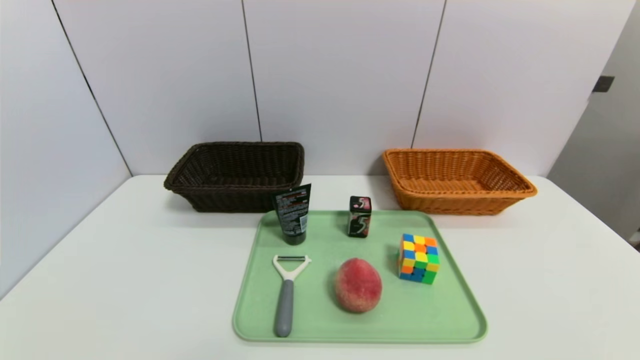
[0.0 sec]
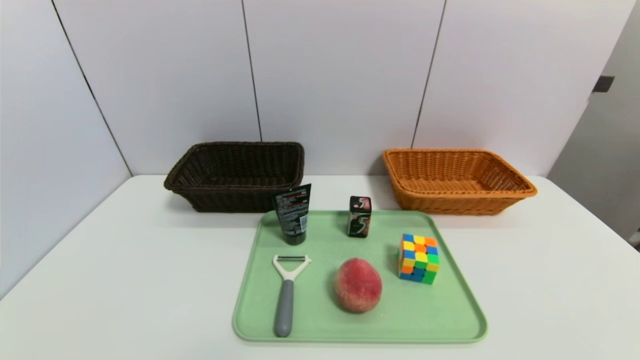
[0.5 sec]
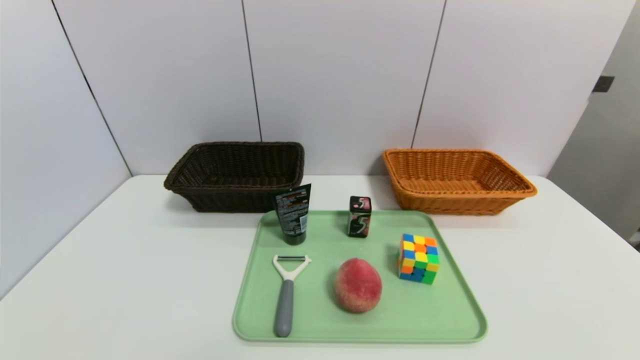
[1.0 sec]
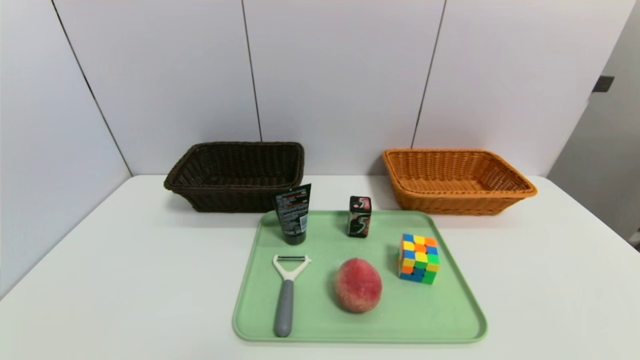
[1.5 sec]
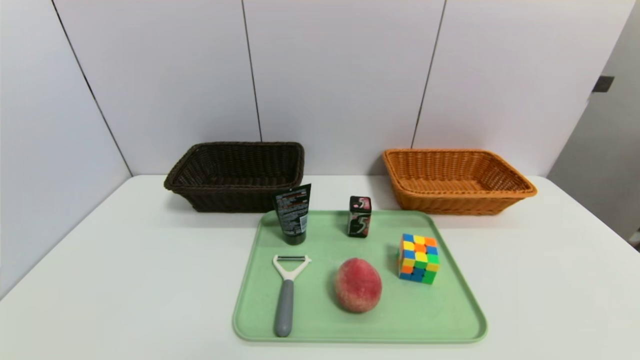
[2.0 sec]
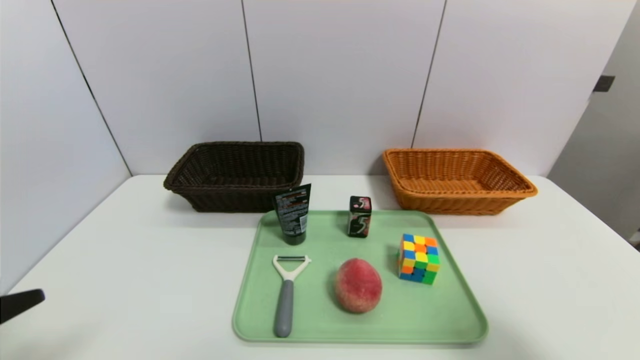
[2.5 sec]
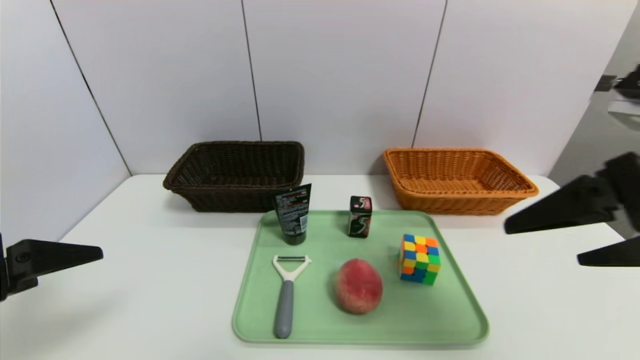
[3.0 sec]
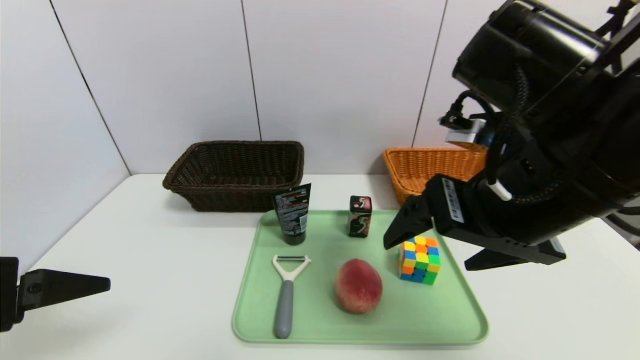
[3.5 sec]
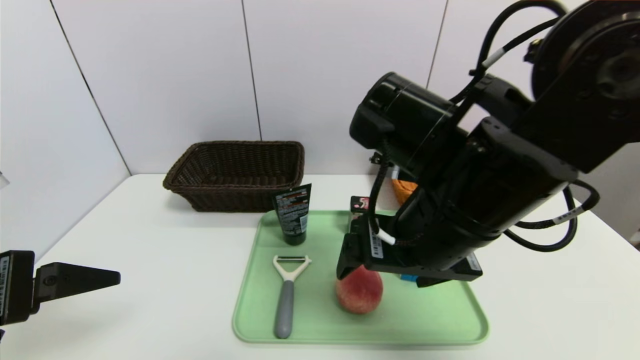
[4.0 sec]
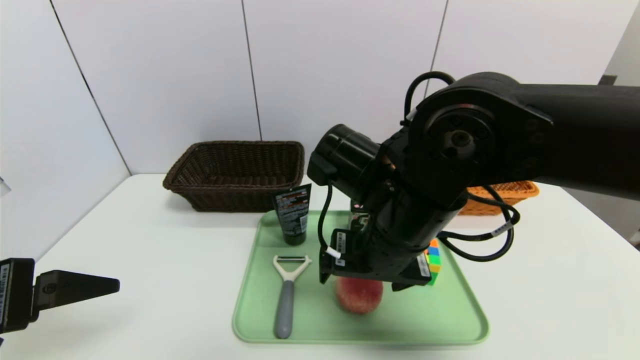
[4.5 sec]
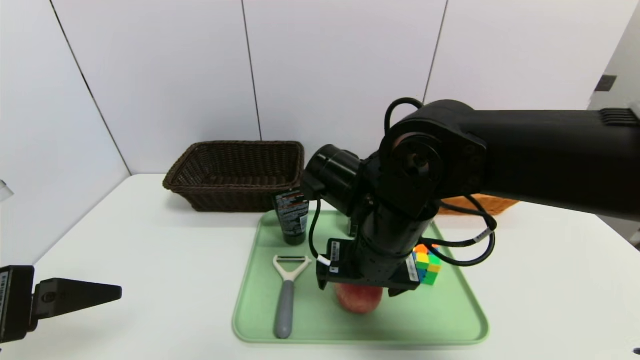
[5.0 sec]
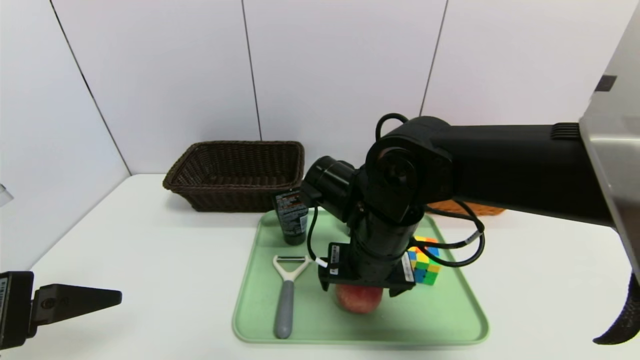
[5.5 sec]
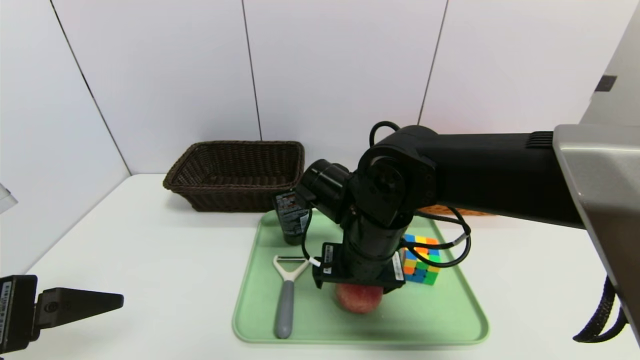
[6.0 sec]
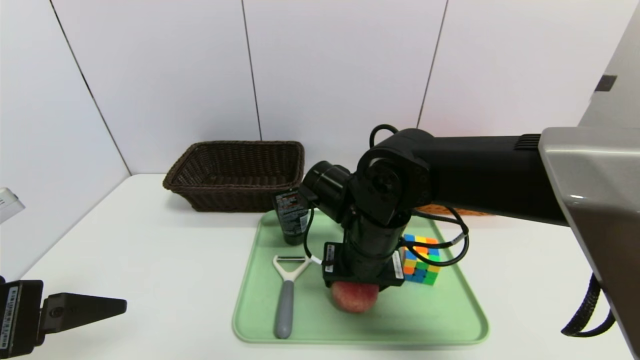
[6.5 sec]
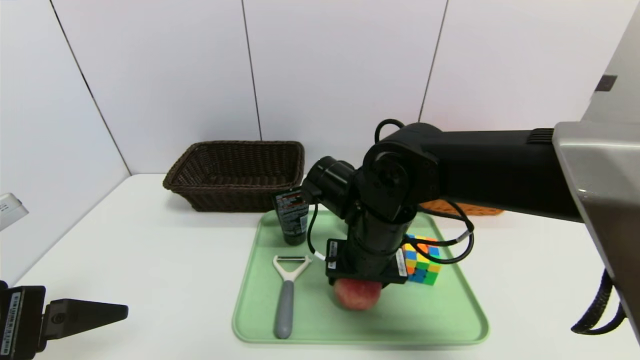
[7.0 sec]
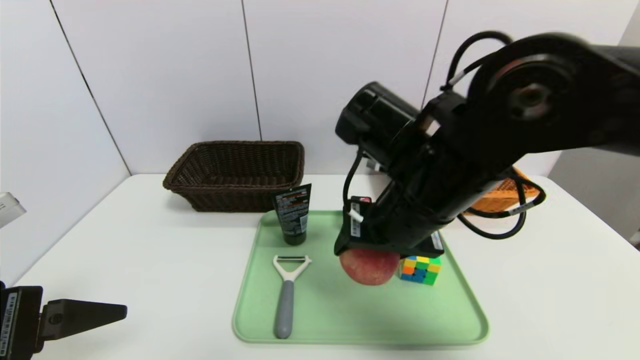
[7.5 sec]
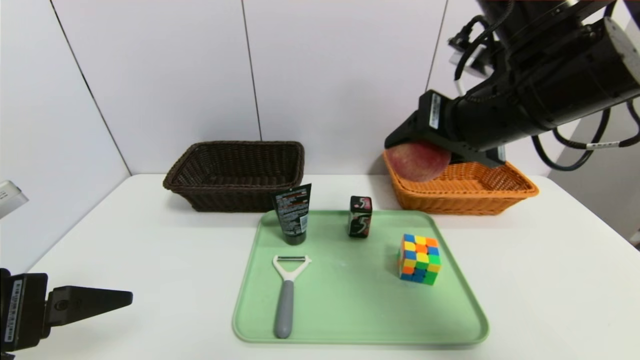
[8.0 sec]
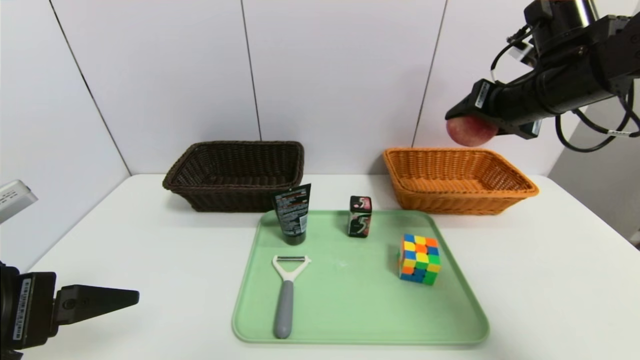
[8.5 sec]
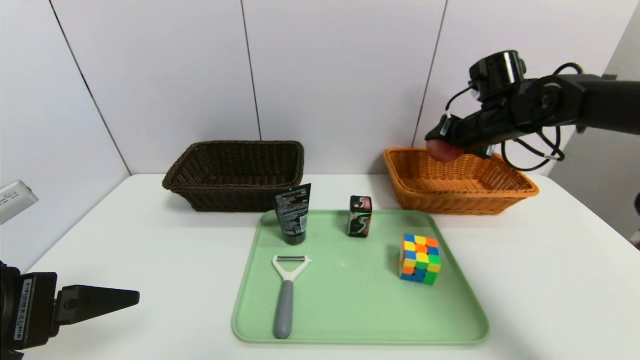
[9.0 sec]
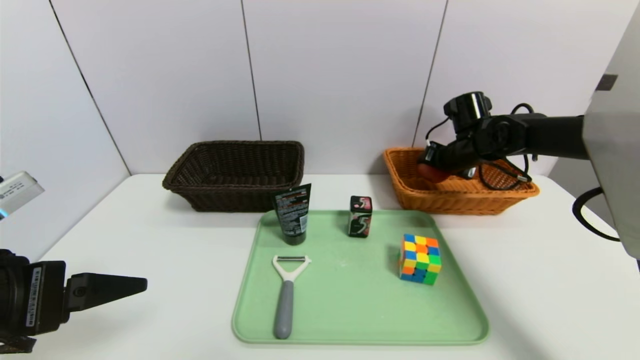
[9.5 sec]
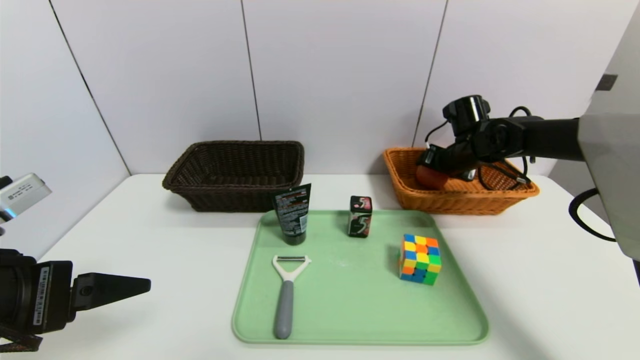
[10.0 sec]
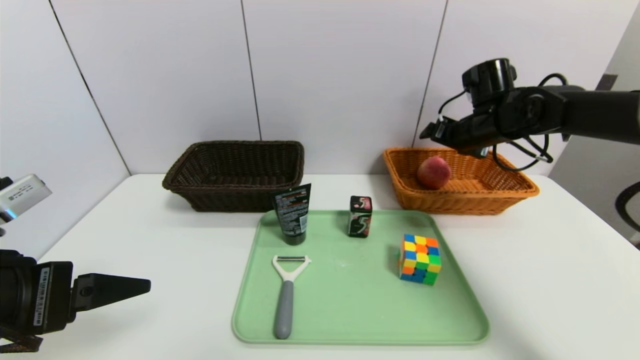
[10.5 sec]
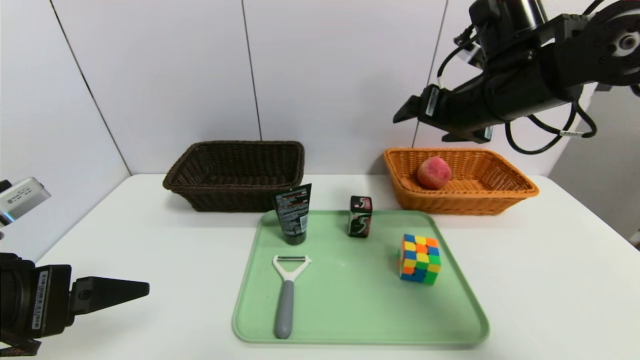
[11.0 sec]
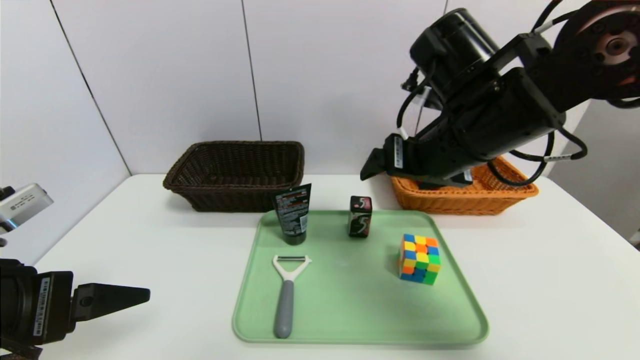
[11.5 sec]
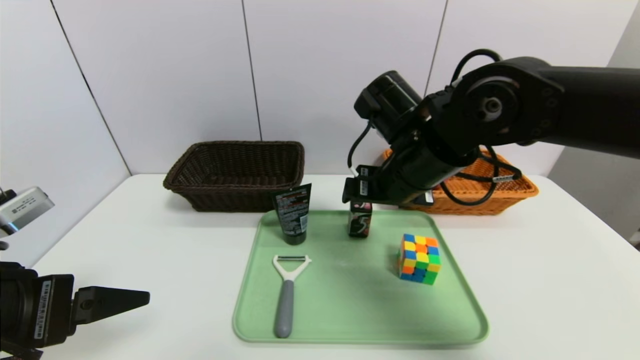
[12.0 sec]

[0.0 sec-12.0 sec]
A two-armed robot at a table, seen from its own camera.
Task of the whole recording: place the food in the right basket with the right gripper, and place the non food items in the left basket with the left gripper.
Step, 0.0 sec to 10.0 sec: Grasp the peach and put it in the right basket.
2.0 sec to 4.0 sec: The right gripper heads to the left and forward, covering approximately 35 cm. The left gripper is displaced forward and upward by roughly 20 cm.
4.0 sec to 6.0 sec: The right gripper heads downward and forward, covering approximately 10 cm.
6.0 sec to 8.0 sec: The right gripper is displaced upward and to the right by roughly 20 cm, and closes.
8.0 sec to 10.0 sec: The right gripper heads forward, downward and to the right, covering about 30 cm.
10.0 sec to 12.0 sec: The right gripper is displaced to the left, backward and upward by some 25 cm.

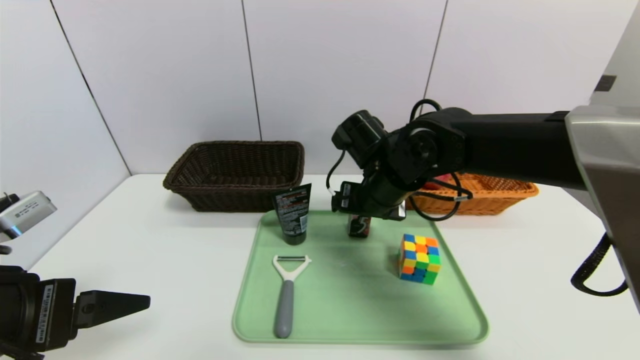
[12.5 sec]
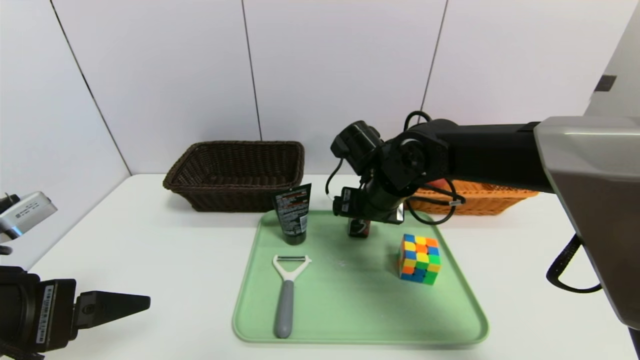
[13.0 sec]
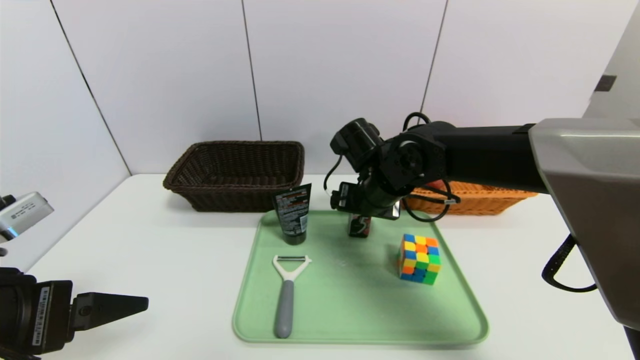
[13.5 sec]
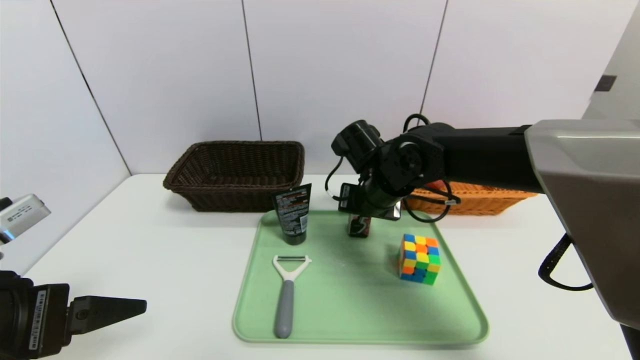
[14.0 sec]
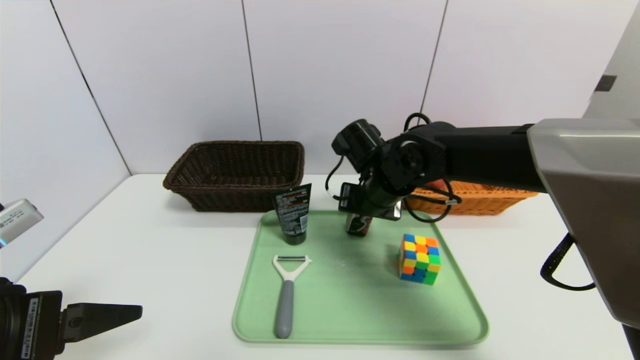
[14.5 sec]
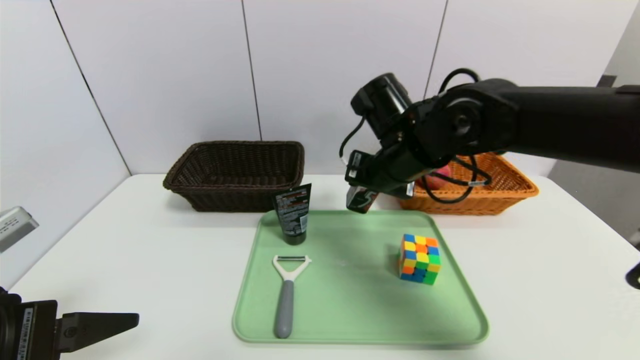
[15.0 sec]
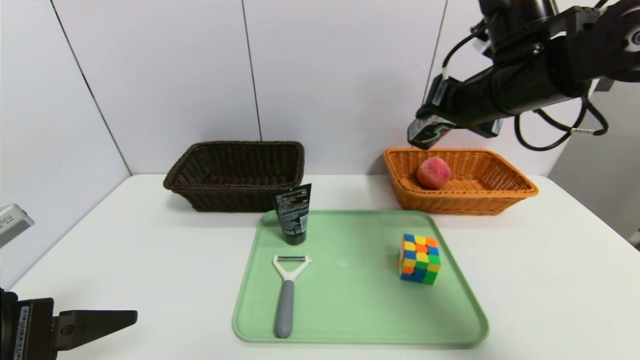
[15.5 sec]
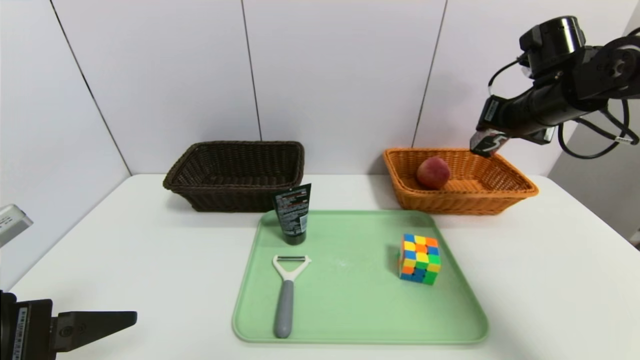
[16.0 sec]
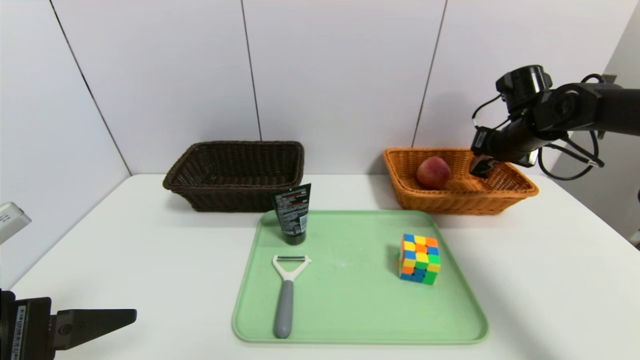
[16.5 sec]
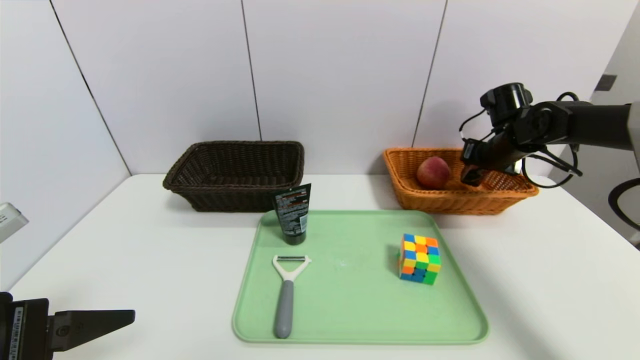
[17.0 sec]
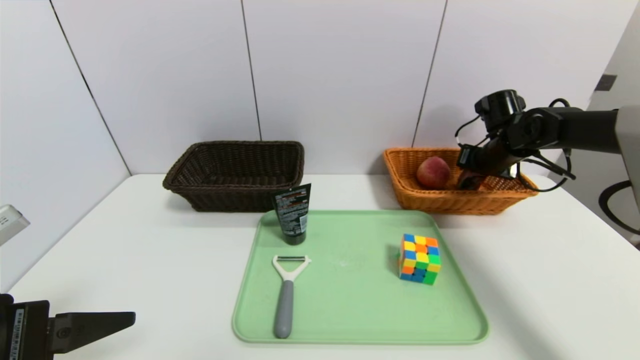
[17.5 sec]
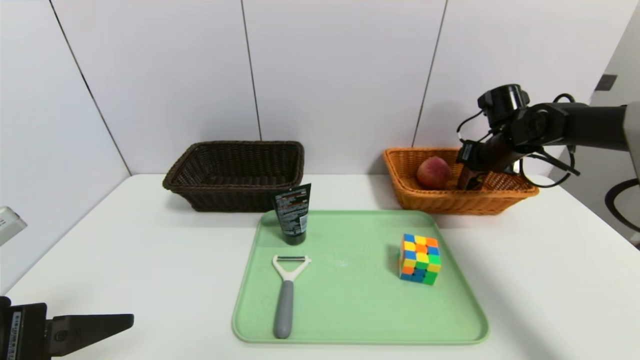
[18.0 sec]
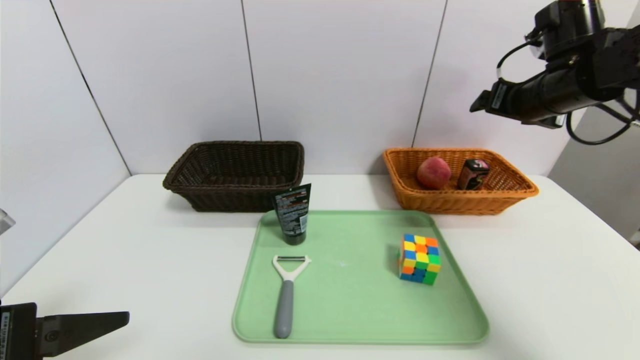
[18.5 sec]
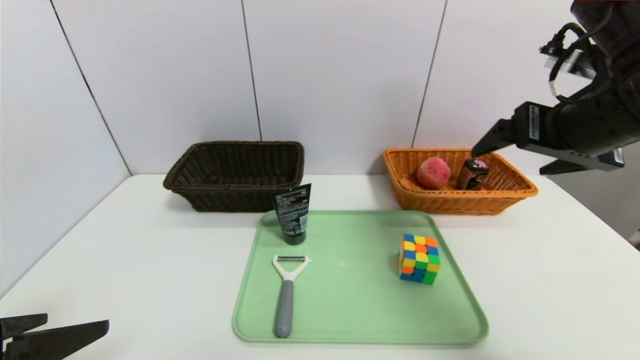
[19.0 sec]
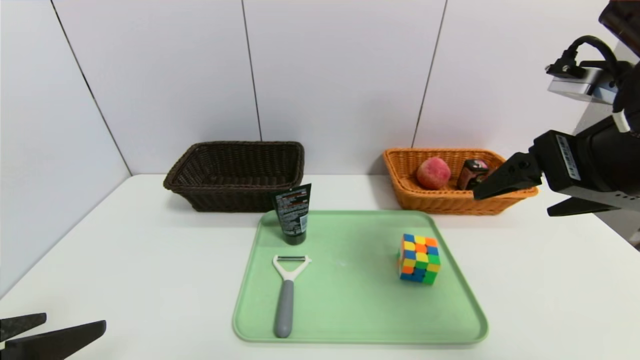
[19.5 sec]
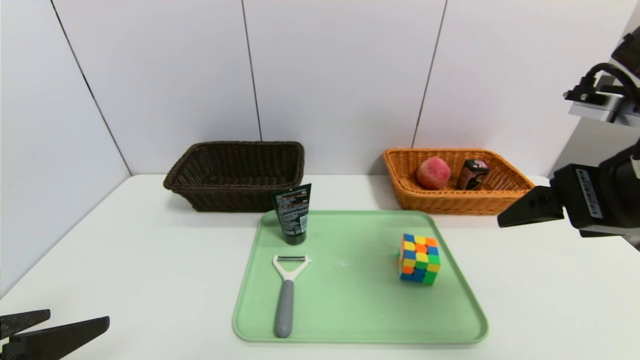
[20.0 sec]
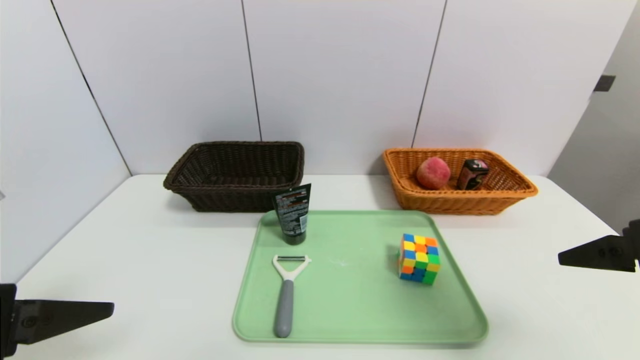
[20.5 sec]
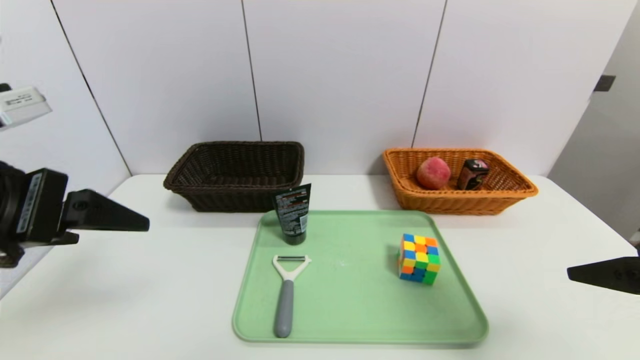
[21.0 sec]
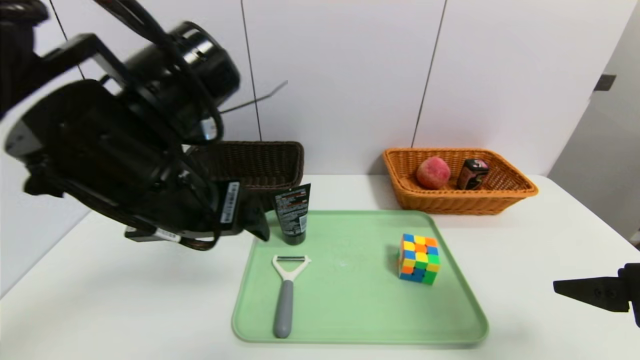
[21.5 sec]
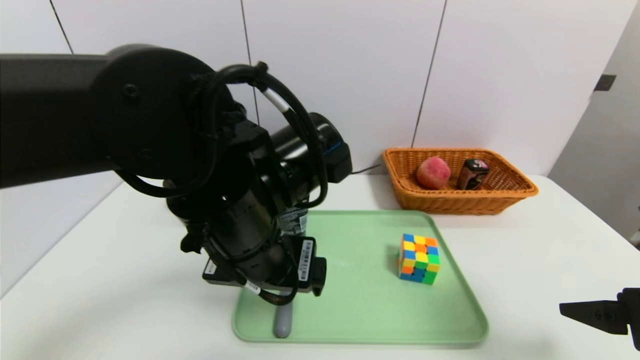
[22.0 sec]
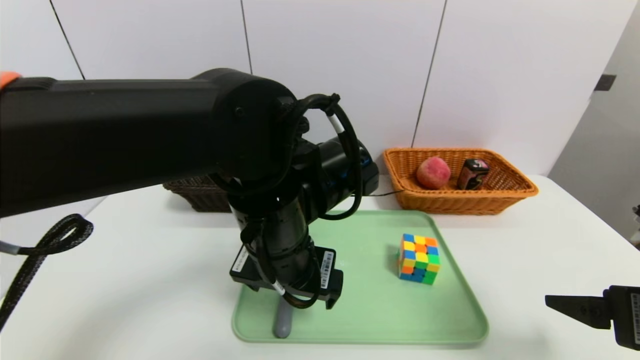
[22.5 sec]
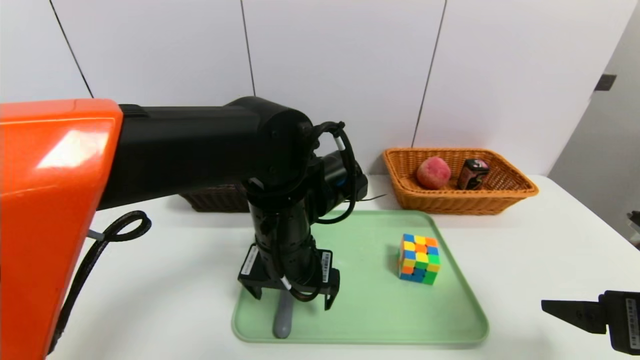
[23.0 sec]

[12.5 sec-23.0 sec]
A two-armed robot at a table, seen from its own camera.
Task of the whole recording: place the food in the right basket with the right gripper, and place the non food items in the left basket with the left gripper.
Step, 12.5 sec to 18.0 sec: Grasp the square chewing gum and put it in the right basket.
12.5 sec to 14.5 sec: The right gripper closes its fingers.
14.5 sec to 16.5 sec: The right gripper shifts some 25 cm to the right.
16.5 sec to 19.0 sec: The right gripper goes roughly 25 cm backward, upward and to the left, and opens its fingers.
19.0 sec to 21.0 sec: The right gripper travels backward and downward by some 15 cm. The left gripper goes some 10 cm upward and forward.
21.0 sec to 23.0 sec: The right gripper travels downward by about 5 cm; the left gripper shifts roughly 25 cm to the right, downward and forward.
